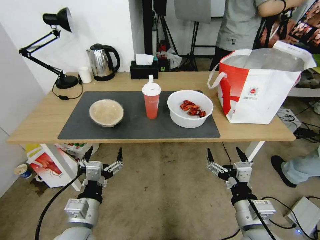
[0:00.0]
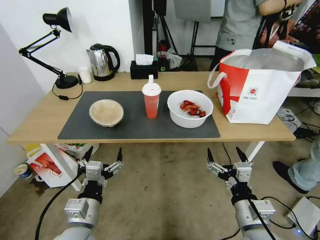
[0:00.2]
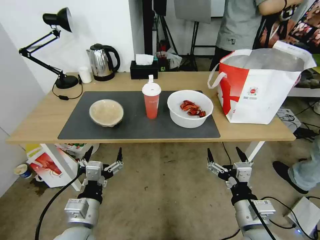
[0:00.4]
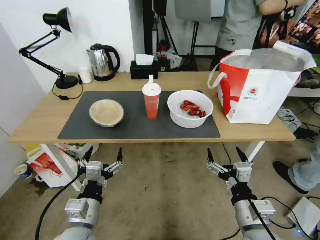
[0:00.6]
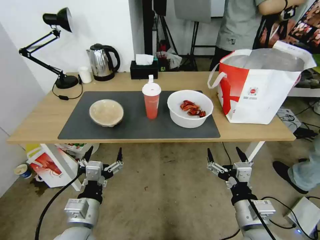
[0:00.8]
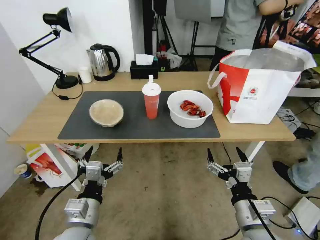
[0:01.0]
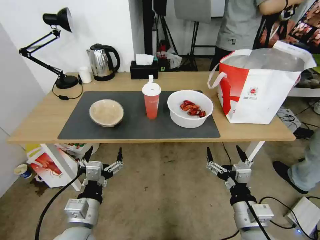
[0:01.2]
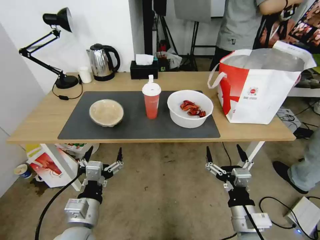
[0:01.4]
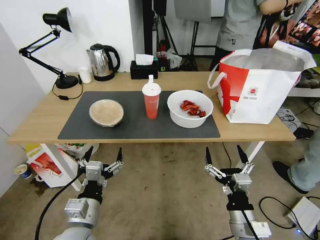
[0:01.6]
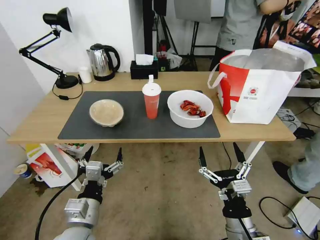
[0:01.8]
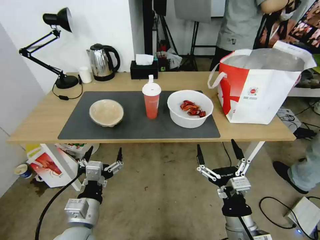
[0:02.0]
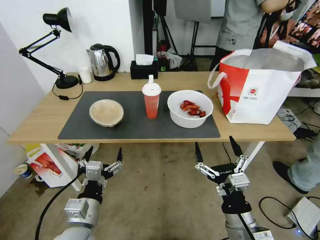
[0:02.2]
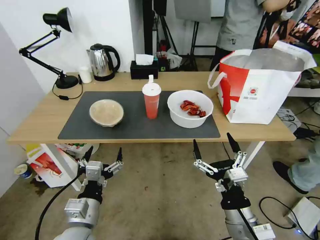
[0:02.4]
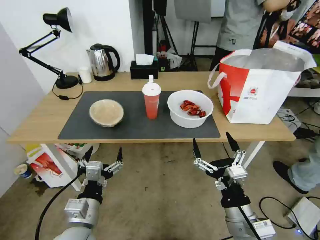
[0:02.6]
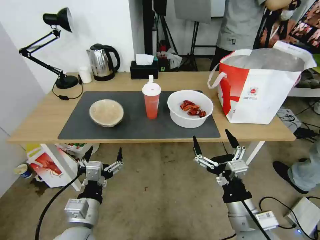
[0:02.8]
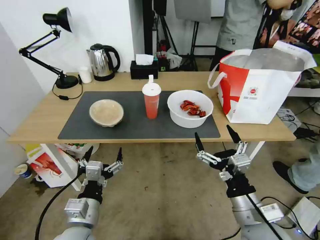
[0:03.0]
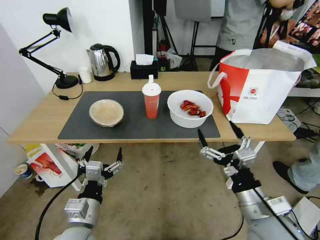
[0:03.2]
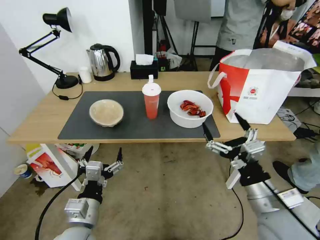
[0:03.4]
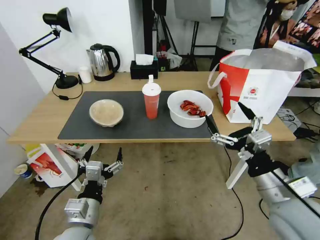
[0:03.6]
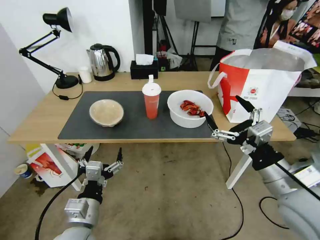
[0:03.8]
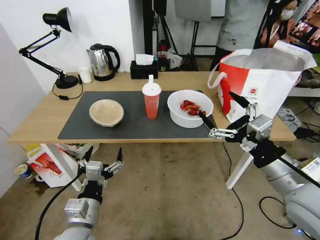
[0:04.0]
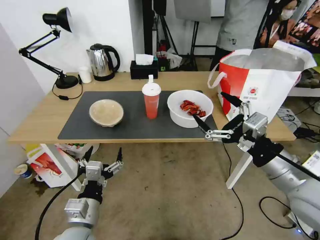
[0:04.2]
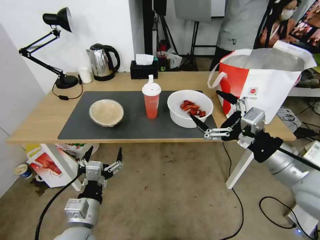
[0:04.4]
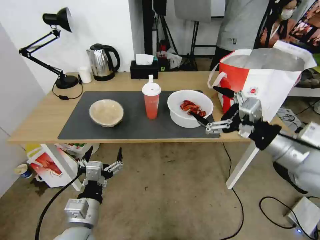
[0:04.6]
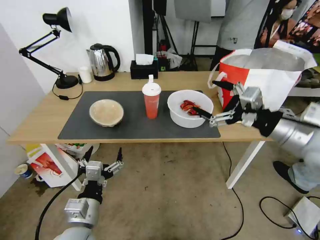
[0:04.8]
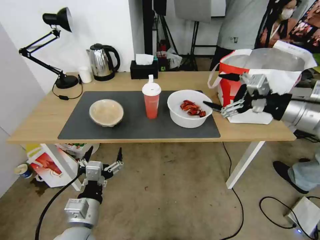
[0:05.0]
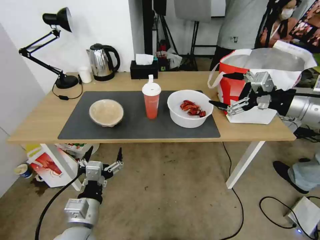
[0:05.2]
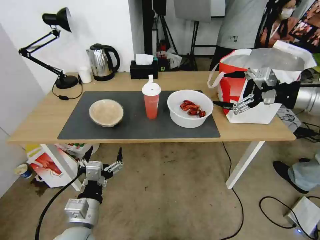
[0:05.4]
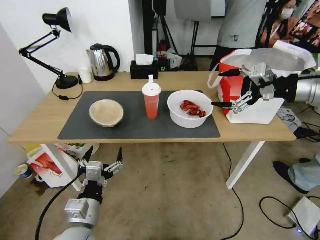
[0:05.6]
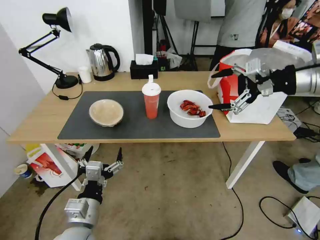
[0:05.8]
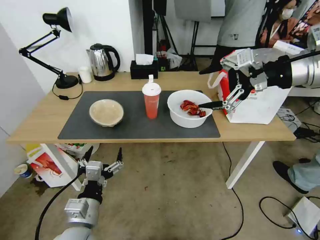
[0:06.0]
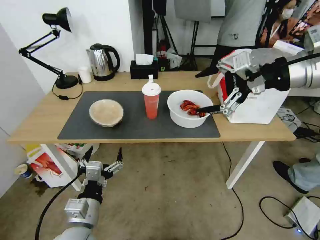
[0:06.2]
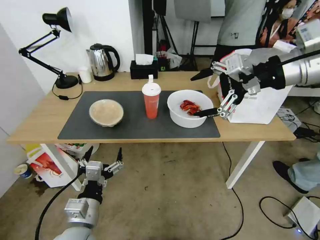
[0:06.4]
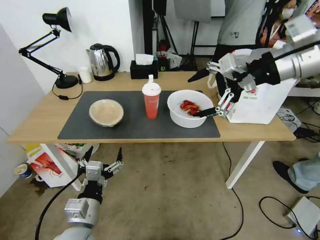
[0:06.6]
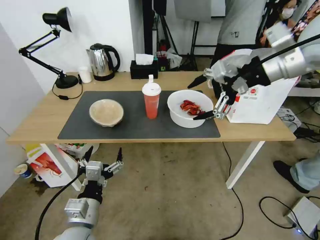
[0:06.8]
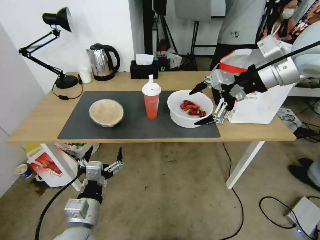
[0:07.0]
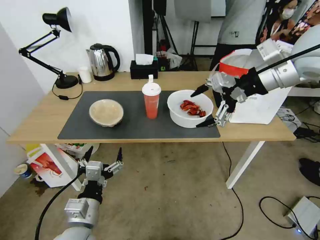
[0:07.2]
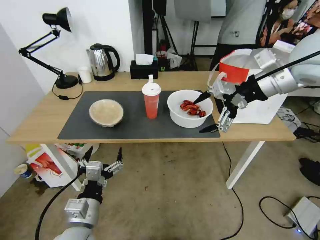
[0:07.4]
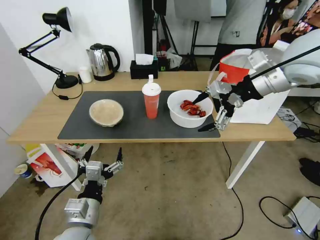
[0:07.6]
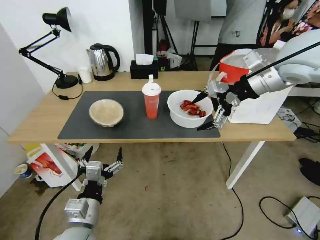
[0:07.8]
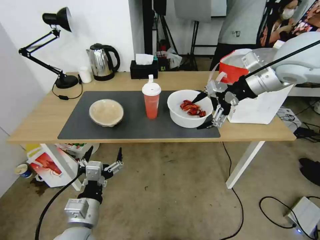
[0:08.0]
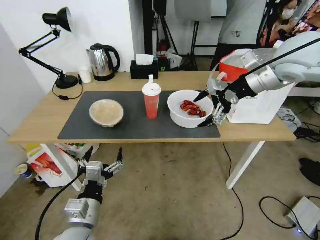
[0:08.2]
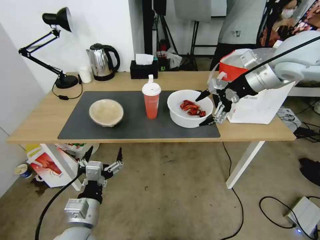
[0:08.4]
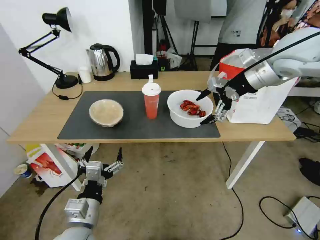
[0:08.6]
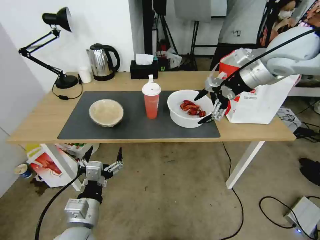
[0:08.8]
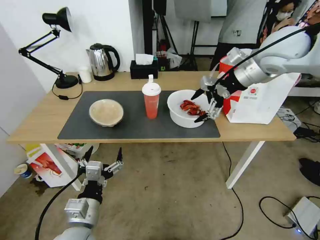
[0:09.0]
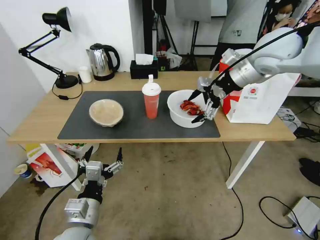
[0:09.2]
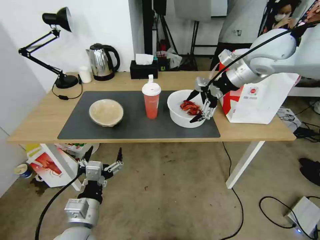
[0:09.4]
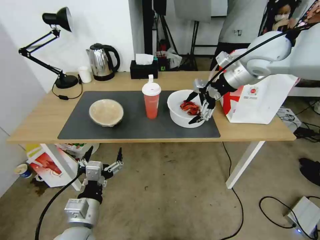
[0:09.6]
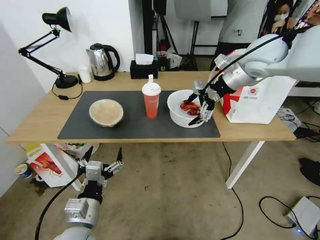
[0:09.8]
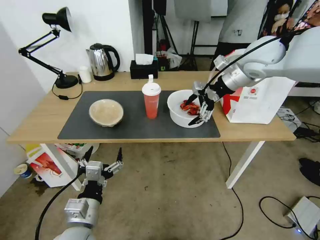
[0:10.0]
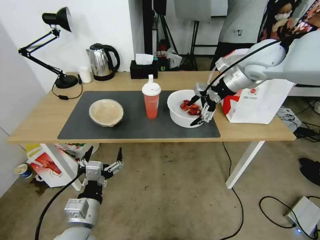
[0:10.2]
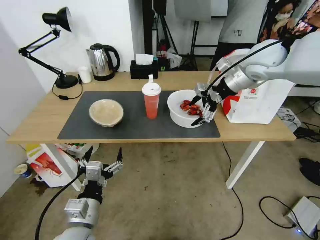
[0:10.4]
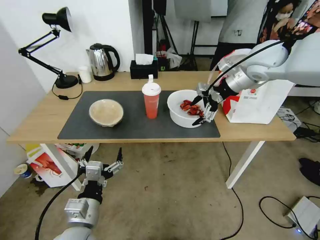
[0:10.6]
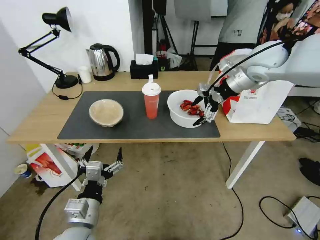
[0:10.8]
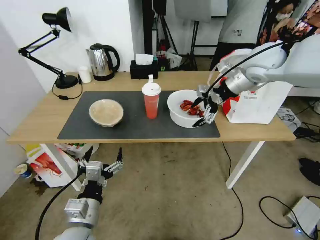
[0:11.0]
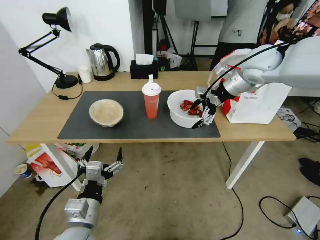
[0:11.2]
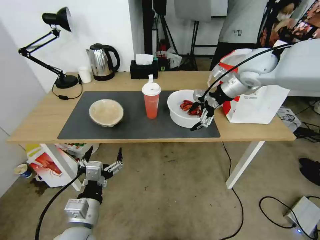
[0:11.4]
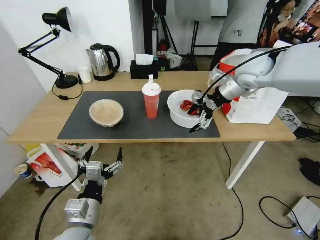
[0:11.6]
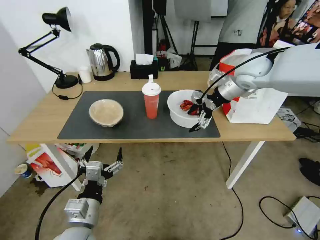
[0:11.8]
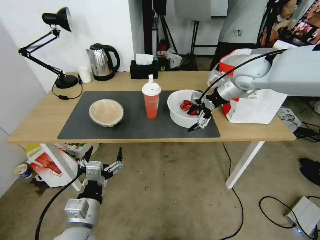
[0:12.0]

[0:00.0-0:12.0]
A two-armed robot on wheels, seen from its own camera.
Task of the whole recording: Pick up the trash from the table and place it into the takeout bag.
0:01.6 to 0:03.0: The right gripper is displaced upward by some 10 cm.
0:03.0 to 0:04.4: The right gripper travels upward, to the right and forward by approximately 20 cm.
0:04.4 to 0:06.0: The right gripper moves upward and forward, about 25 cm.
0:06.0 to 0:07.6: The right gripper is displaced forward by roughly 5 cm.
0:07.6 to 0:09.0: The right gripper shifts about 5 cm forward.
0:09.0 to 0:10.4: The right gripper changes place by roughly 5 cm.
0:10.4 to 0:12.0: The grippers make only small movements.

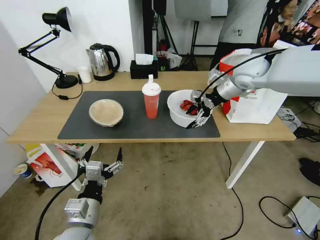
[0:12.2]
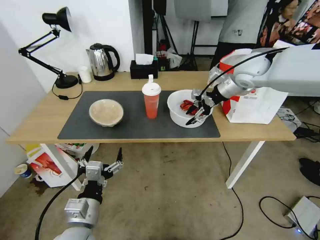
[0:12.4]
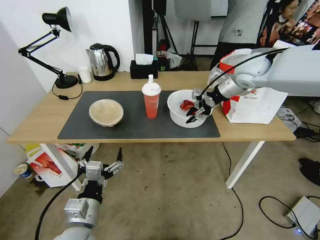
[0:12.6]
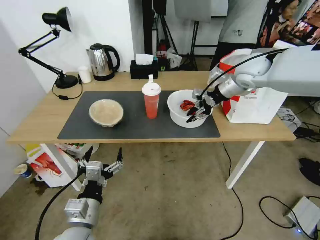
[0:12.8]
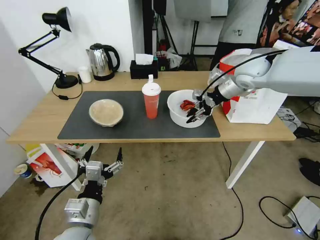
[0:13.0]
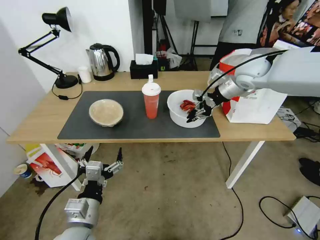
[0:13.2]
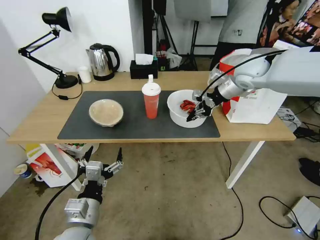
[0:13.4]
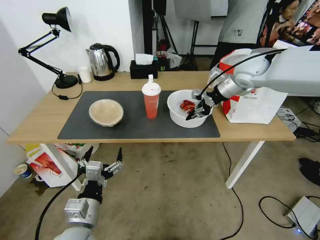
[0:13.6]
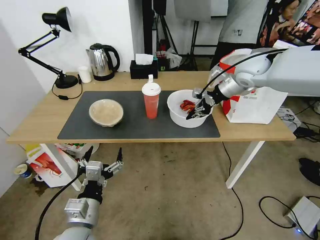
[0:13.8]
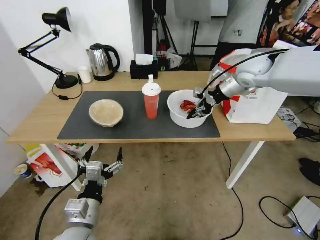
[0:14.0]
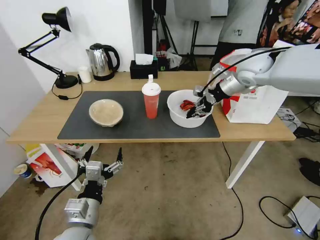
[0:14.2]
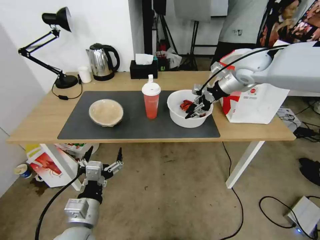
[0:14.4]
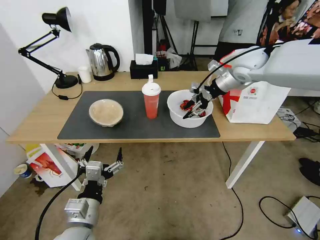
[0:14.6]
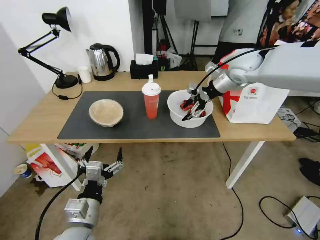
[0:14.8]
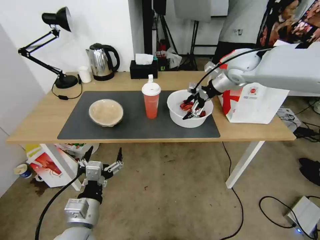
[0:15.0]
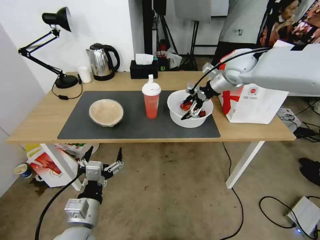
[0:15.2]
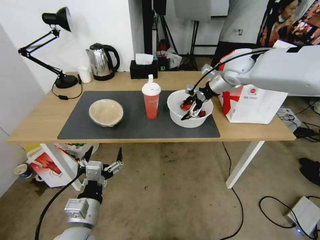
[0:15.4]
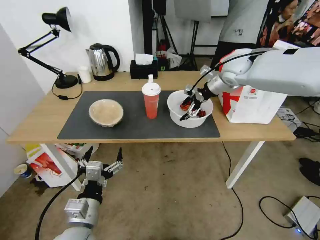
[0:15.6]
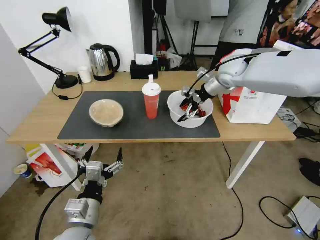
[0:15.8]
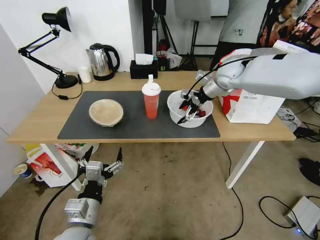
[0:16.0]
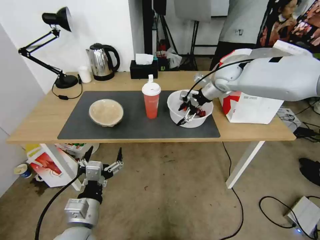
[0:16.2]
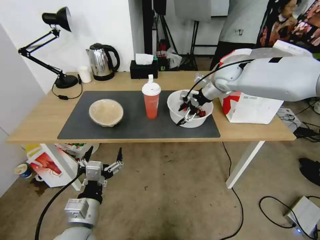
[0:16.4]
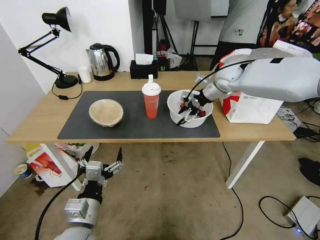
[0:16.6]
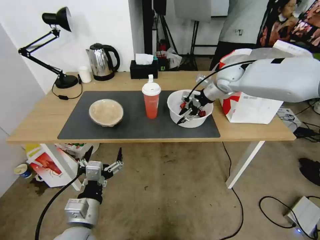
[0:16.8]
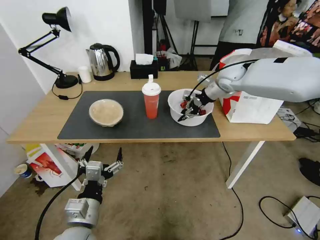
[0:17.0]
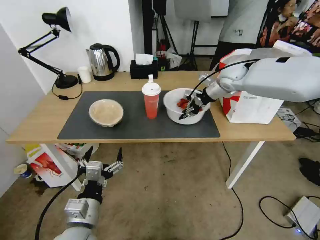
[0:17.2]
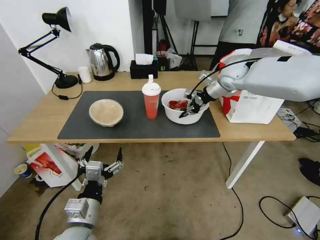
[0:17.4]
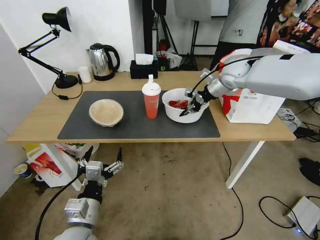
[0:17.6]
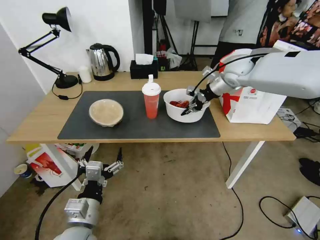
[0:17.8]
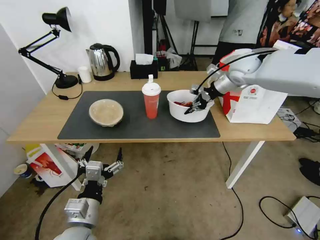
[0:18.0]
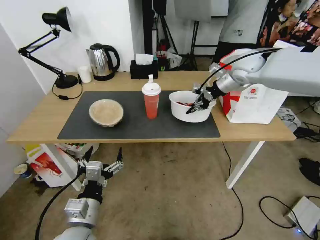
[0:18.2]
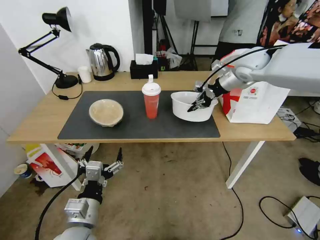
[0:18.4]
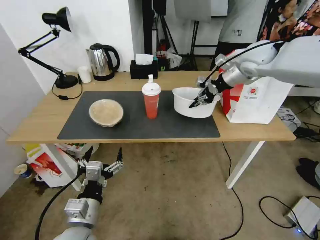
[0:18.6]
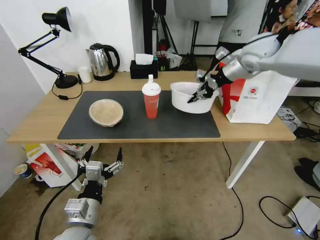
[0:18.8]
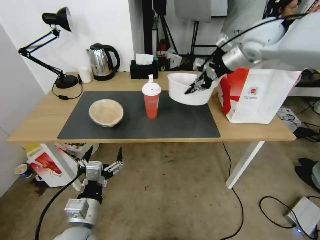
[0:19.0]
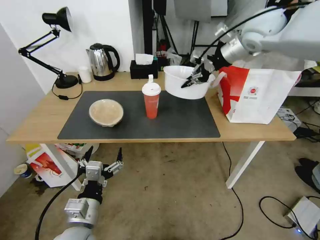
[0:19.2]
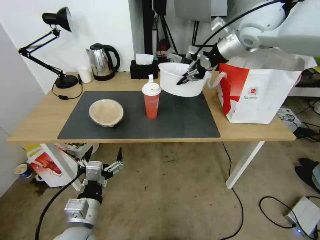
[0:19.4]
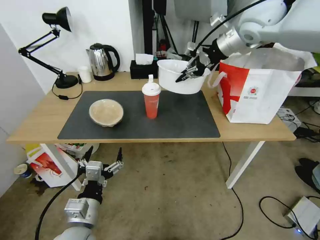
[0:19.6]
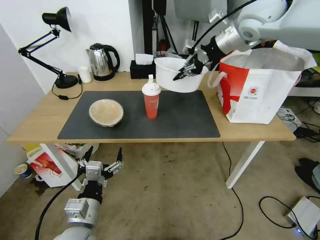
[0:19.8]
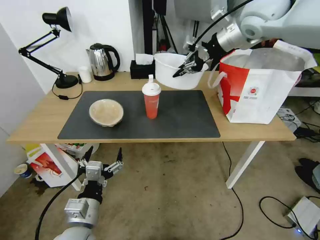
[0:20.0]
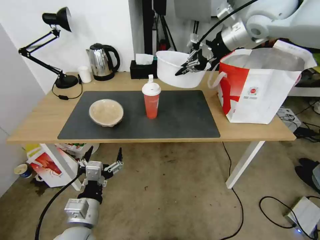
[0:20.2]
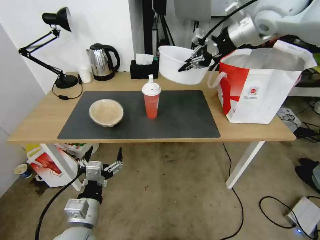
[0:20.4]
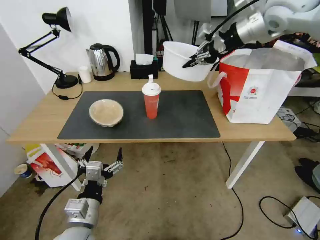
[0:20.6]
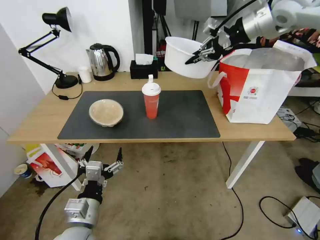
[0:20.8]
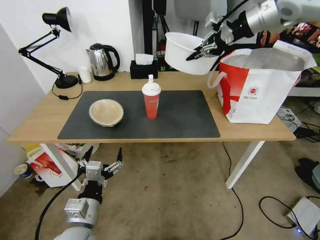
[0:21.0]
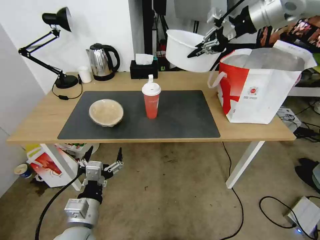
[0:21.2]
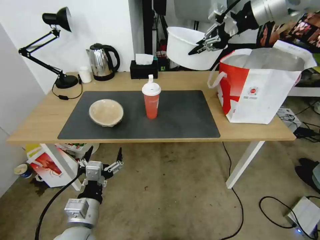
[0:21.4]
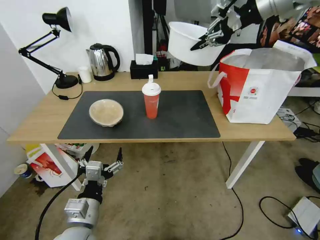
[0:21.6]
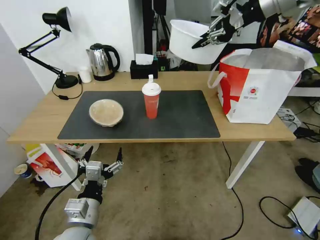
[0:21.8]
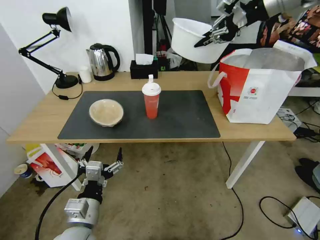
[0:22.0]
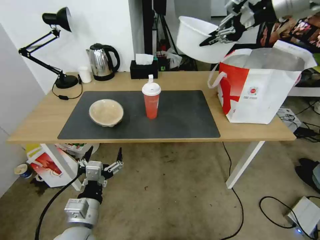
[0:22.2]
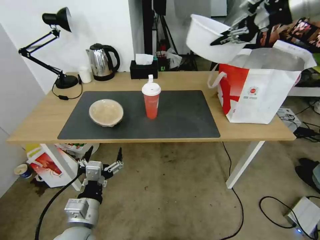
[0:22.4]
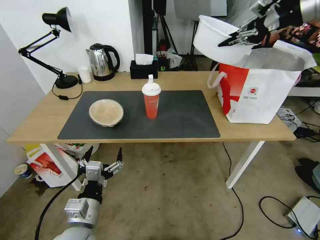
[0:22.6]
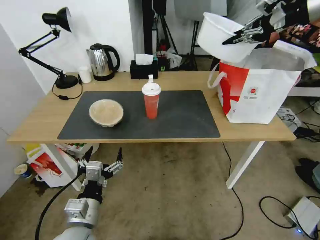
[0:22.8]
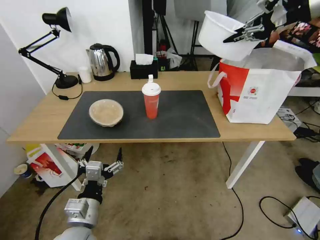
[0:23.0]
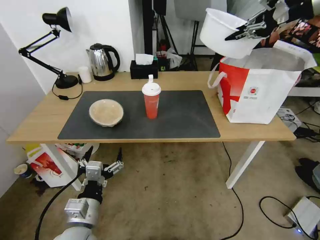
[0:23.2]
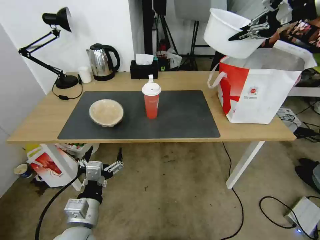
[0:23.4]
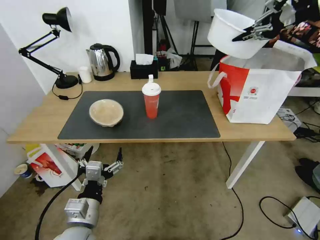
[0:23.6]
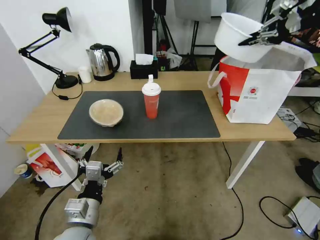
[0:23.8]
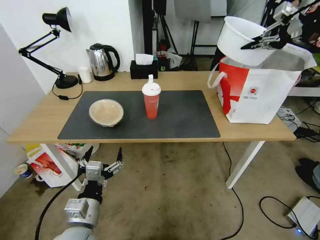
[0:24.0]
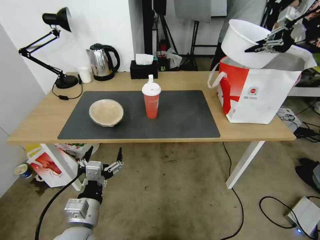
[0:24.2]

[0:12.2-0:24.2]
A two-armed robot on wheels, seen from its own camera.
Task of the whole recording: Pick up the trash from the table and place it into the takeout bag.
0:12.2 to 0:13.8: The right gripper closes.
0:13.8 to 0:15.2: The right gripper opens up.
0:15.2 to 0:16.6: The grippers move only a little.
0:16.6 to 0:18.2: The right gripper changes place by approximately 5 cm, and closes up.
0:18.2 to 0:19.8: The right gripper moves upward, roughly 15 cm.
0:19.8 to 0:21.2: The right gripper is displaced upward and to the right by roughly 10 cm.
0:21.2 to 0:22.6: The right gripper moves to the right, some 10 cm.
0:22.6 to 0:24.2: The right gripper moves to the right, about 10 cm.
